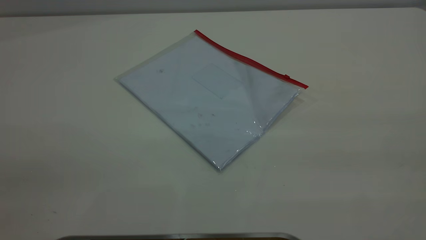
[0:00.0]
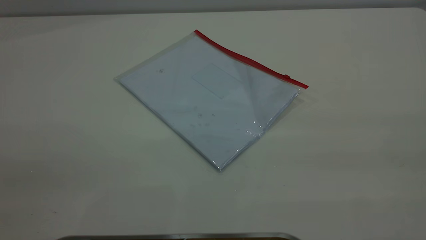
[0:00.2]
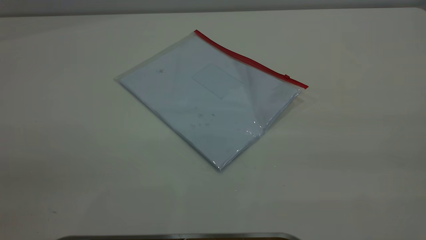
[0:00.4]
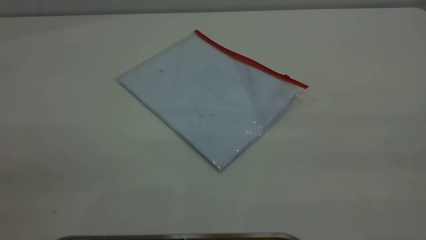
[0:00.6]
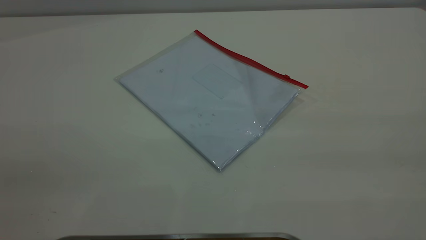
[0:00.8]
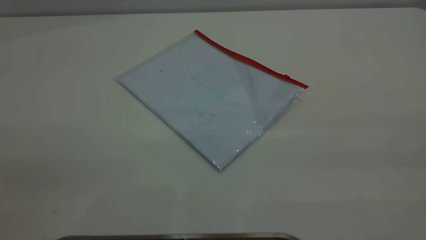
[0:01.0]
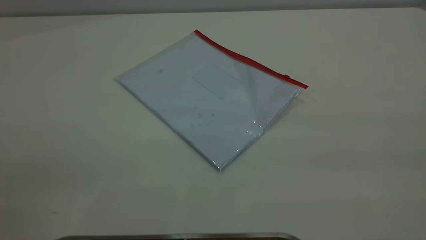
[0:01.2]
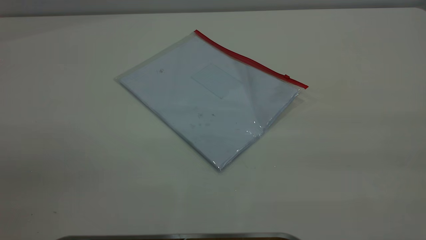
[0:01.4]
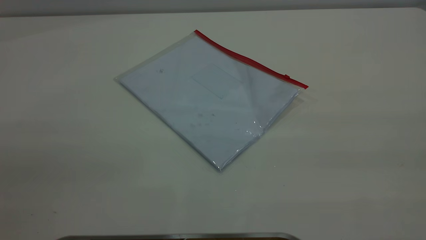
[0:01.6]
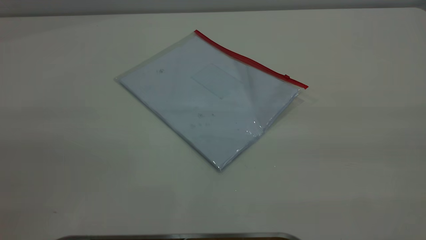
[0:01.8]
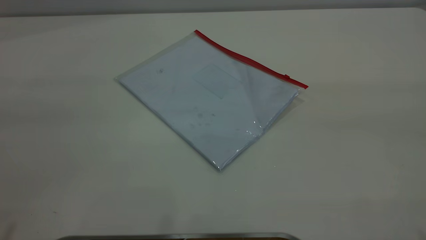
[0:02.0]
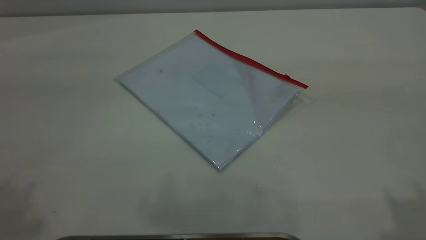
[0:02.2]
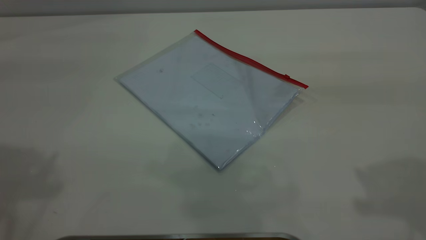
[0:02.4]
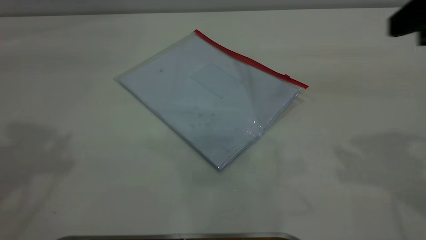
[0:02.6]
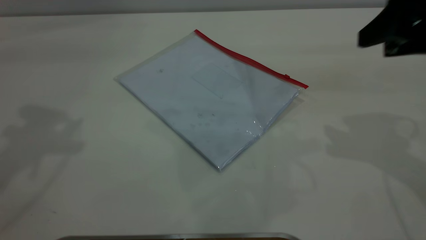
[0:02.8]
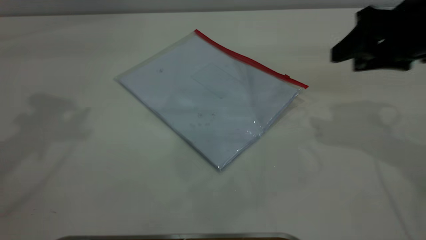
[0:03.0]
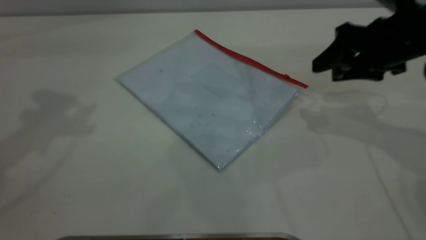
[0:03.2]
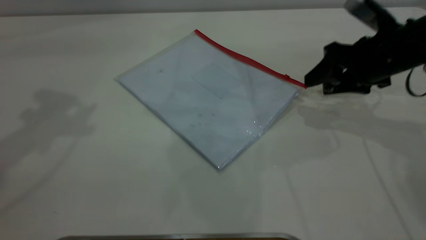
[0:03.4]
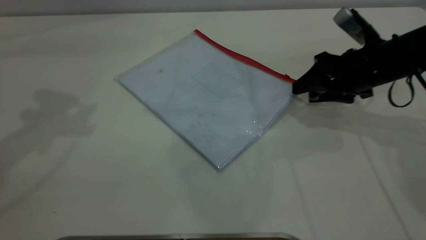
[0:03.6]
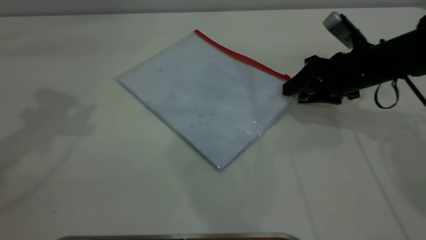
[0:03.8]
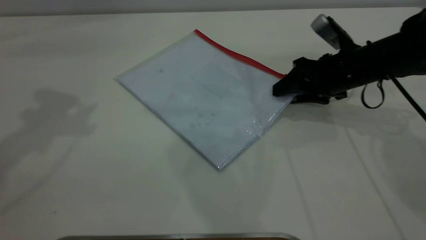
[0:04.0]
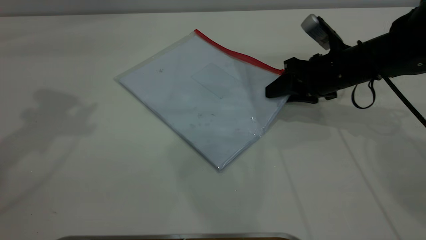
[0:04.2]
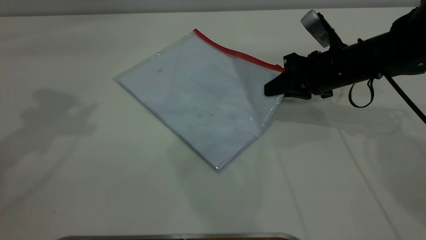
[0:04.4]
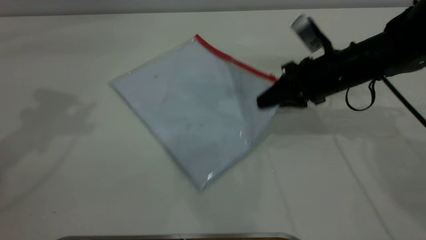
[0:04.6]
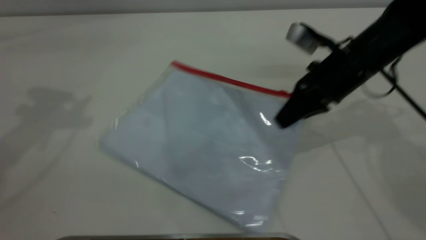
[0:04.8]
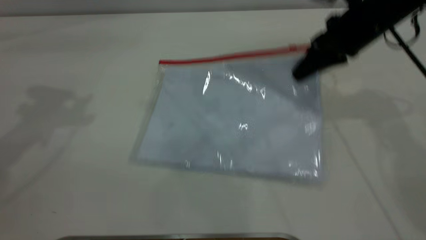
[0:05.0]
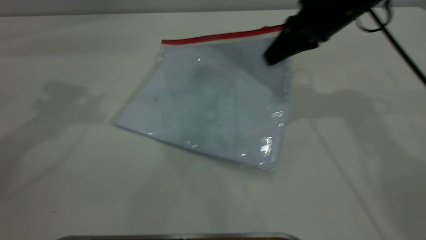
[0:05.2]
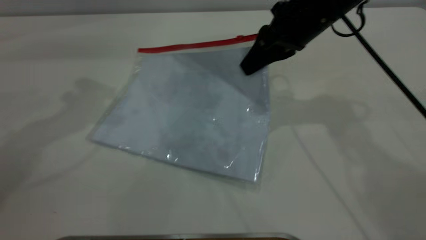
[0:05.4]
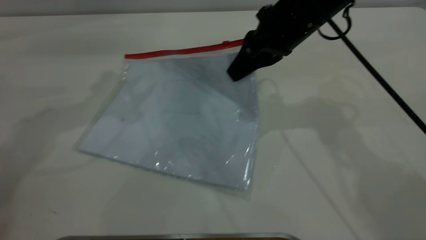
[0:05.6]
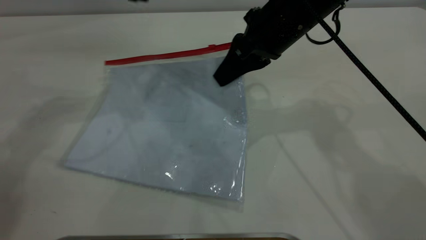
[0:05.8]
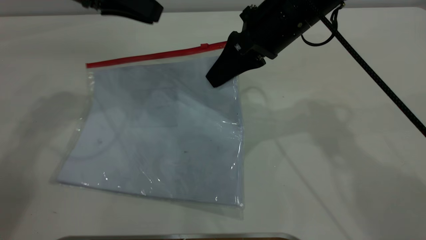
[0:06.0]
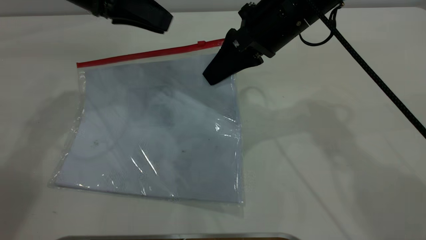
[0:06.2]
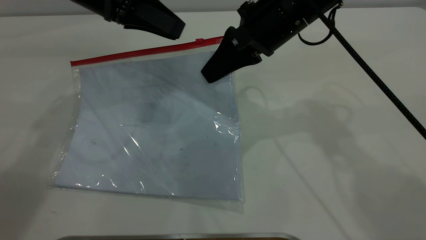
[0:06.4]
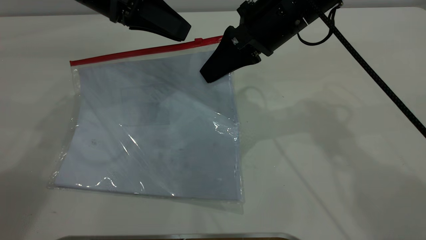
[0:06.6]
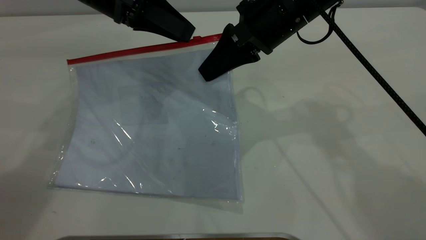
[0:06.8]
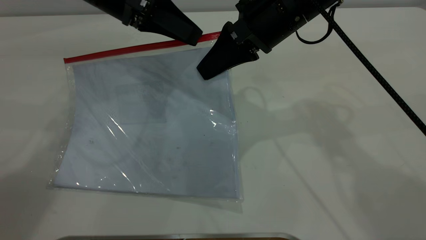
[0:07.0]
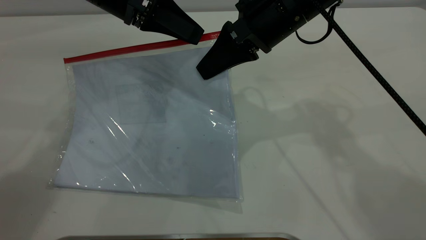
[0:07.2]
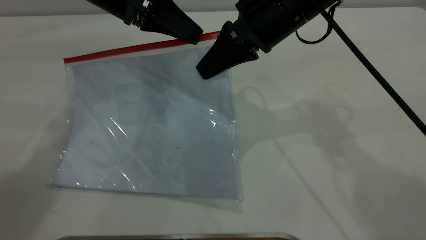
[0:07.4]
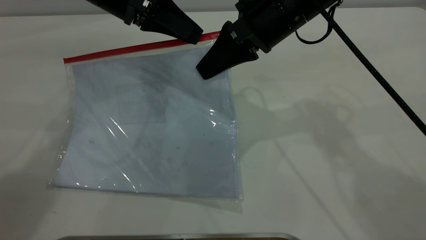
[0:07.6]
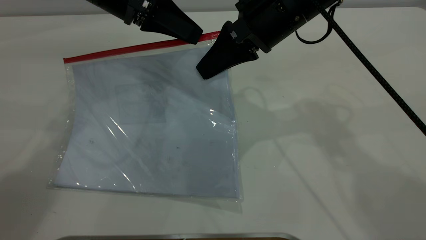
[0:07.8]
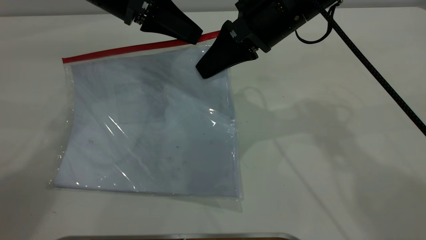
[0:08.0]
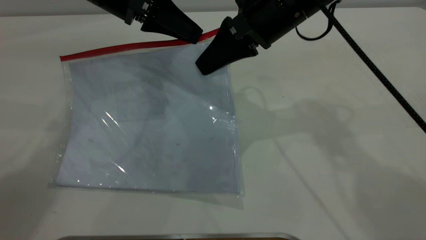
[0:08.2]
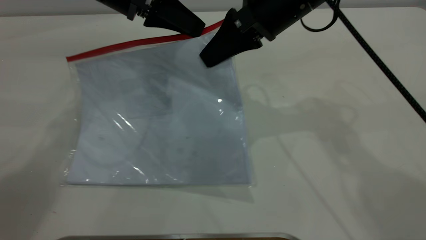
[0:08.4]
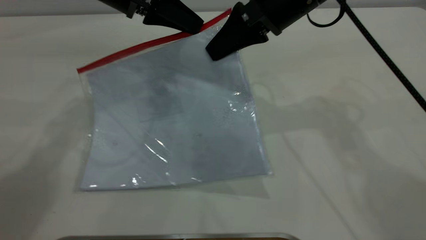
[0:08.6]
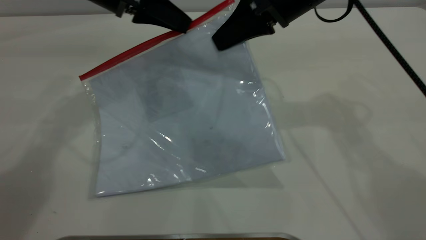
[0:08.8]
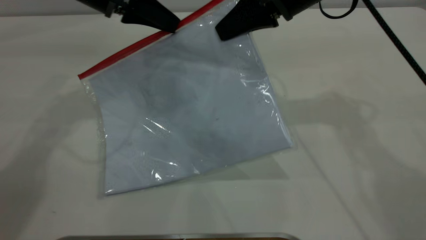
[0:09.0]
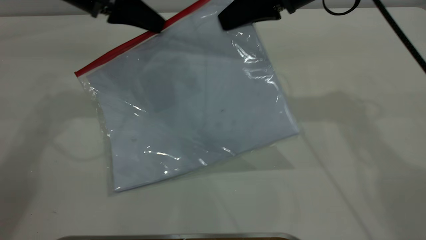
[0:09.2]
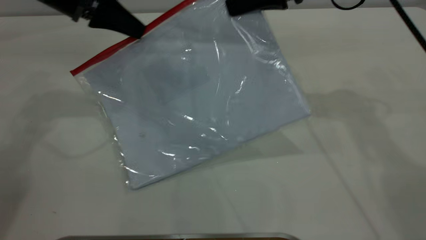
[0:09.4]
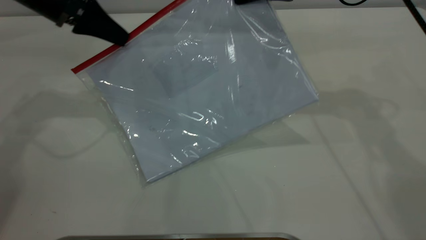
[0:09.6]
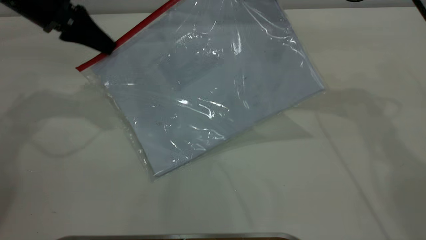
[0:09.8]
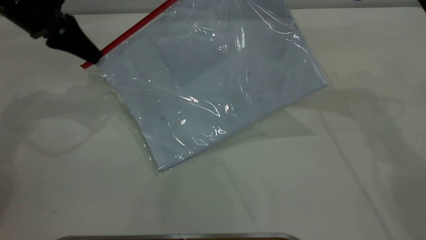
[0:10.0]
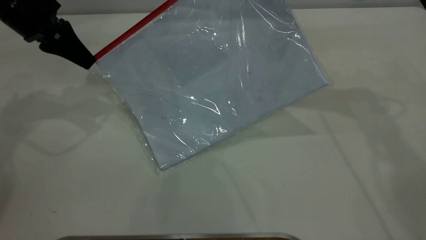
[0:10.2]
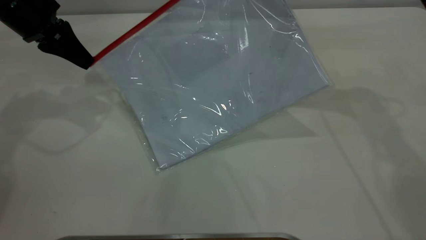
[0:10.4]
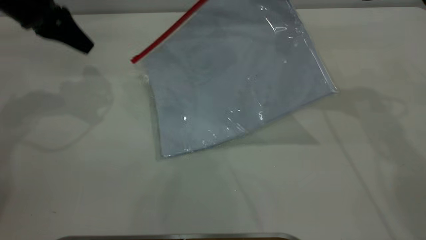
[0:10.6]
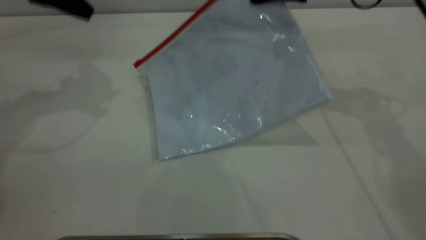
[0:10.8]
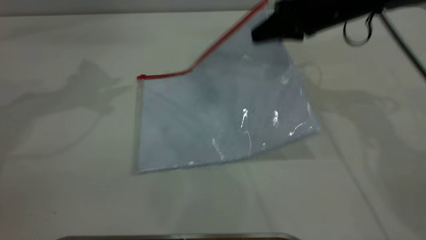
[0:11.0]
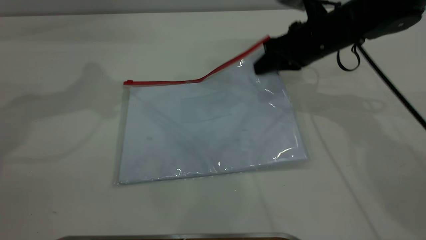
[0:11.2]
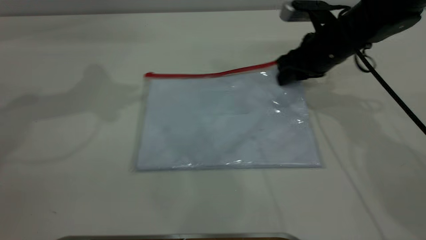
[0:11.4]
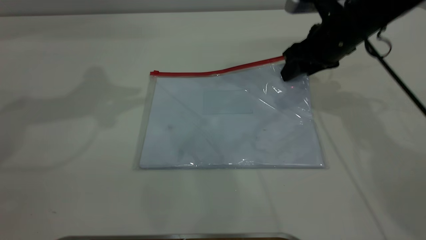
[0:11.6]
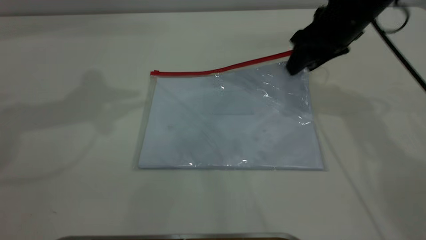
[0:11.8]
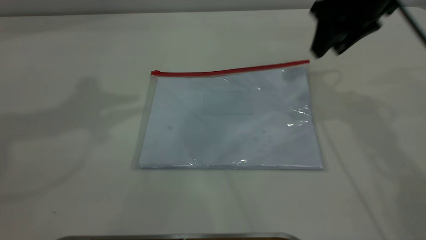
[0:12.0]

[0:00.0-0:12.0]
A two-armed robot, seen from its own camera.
Step, 0:00.0 to 0:05.6: Pick up the transparent plastic bag with the right gripper.
Step, 0:05.8 to 0:10.6: Pulling up the zipper on the transparent plastic bag with the left gripper to close it.
0:00.0 to 0:01.6: The two grippers keep their place.
0:01.6 to 0:03.0: The right gripper is displaced forward and downward by roughly 35 cm, and opens.
0:03.0 to 0:04.4: The right gripper goes about 15 cm downward, forward and to the left, and closes its fingers.
0:04.4 to 0:06.0: The left gripper heads downward, to the right and forward, covering approximately 15 cm. The right gripper goes about 15 cm upward and to the left.
0:06.0 to 0:07.6: The left gripper heads to the right, covering about 5 cm, and closes up.
0:07.6 to 0:09.0: The left gripper closes, while the right gripper changes place by roughly 5 cm.
0:09.0 to 0:10.4: The right gripper moves some 5 cm; the left gripper goes about 10 cm to the left.
0:10.4 to 0:12.0: The left gripper travels upward by some 25 cm, and opens, while the right gripper travels downward and back again, about 15 cm each way, and opens its fingers.

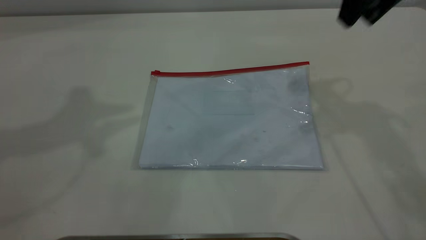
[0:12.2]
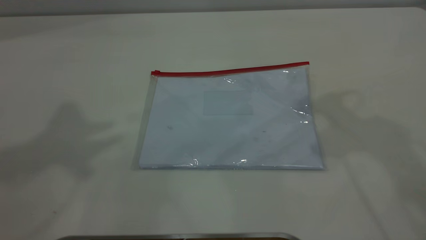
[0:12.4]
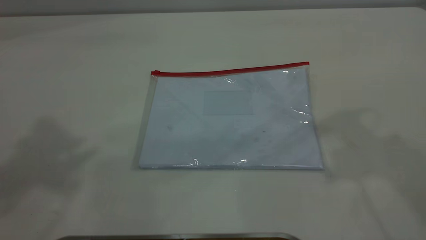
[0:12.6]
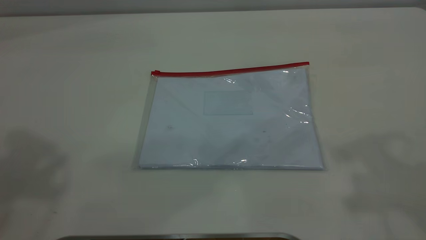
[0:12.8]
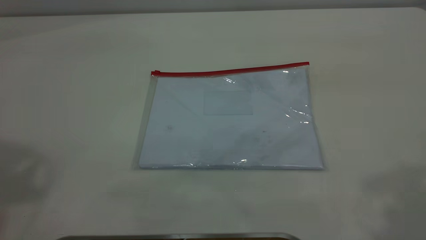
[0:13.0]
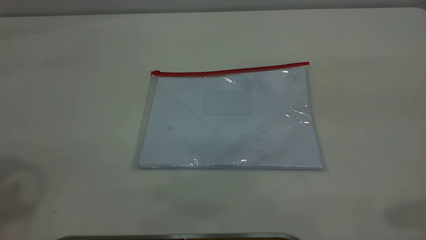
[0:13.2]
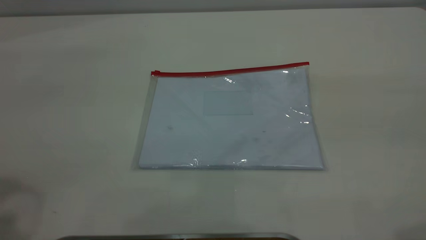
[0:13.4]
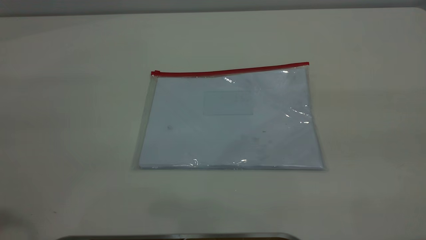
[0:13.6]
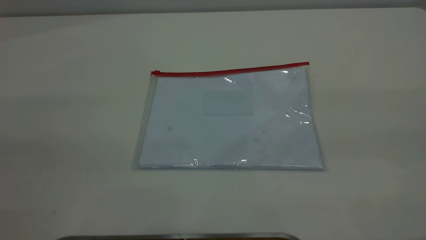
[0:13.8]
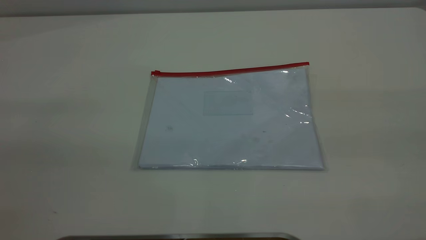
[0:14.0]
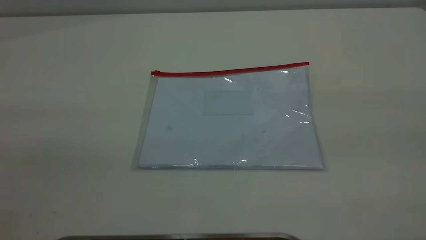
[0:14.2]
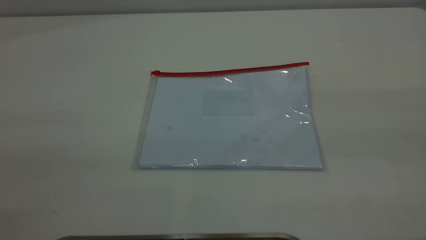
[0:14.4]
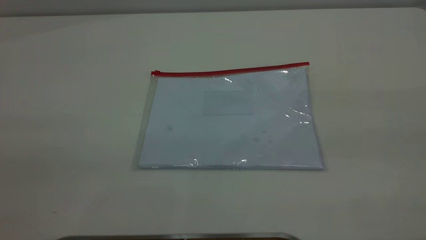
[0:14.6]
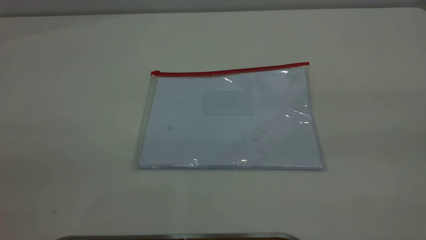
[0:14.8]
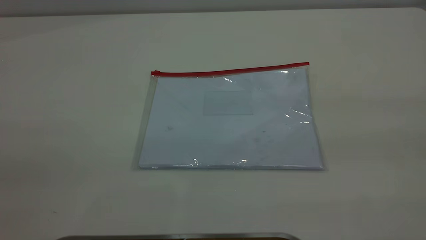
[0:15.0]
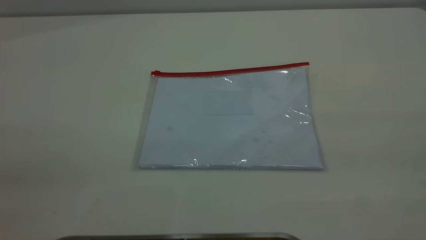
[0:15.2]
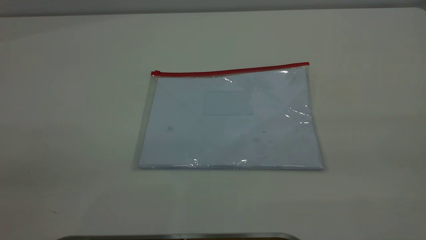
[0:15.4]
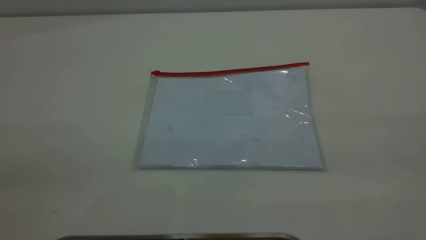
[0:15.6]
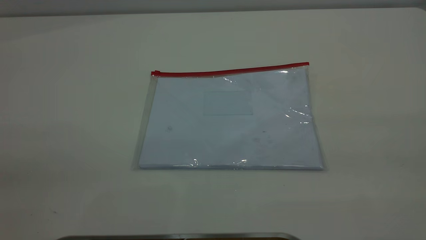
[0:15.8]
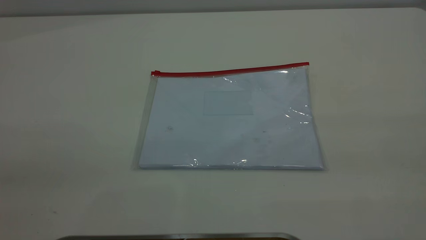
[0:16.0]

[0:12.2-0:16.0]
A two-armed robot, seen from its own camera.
0:12.2 to 0:13.4: The right gripper travels backward by approximately 25 cm.
